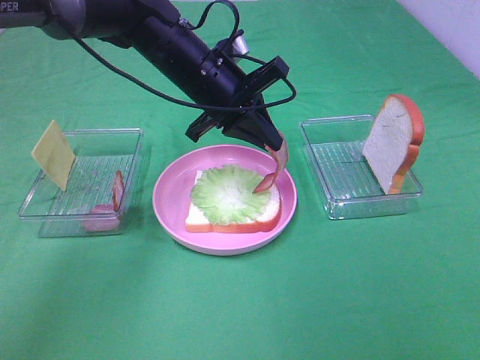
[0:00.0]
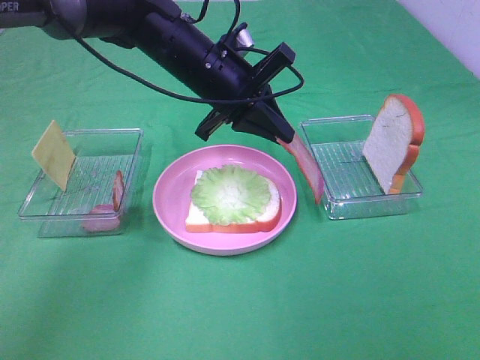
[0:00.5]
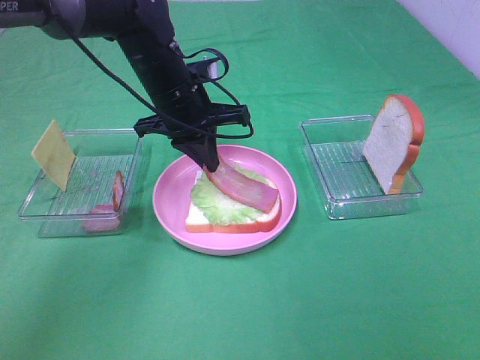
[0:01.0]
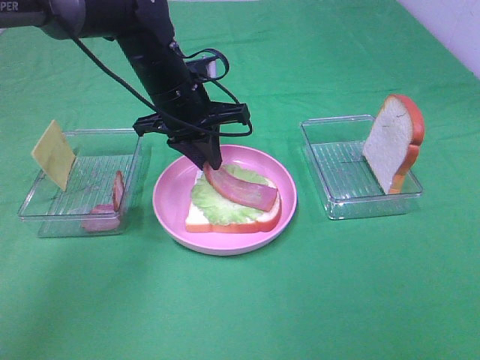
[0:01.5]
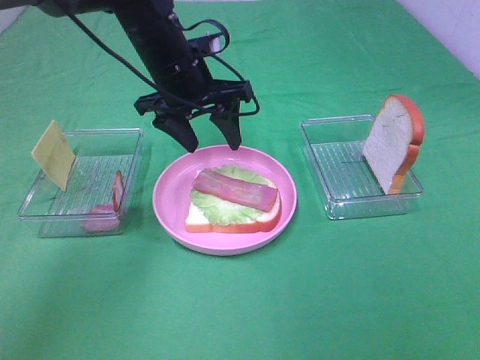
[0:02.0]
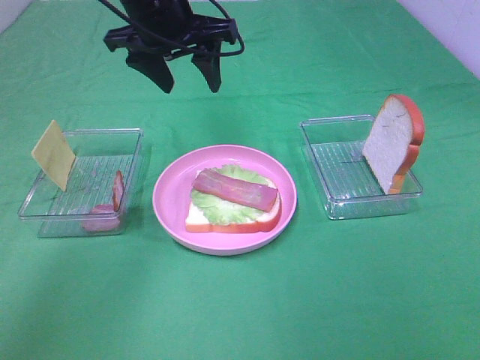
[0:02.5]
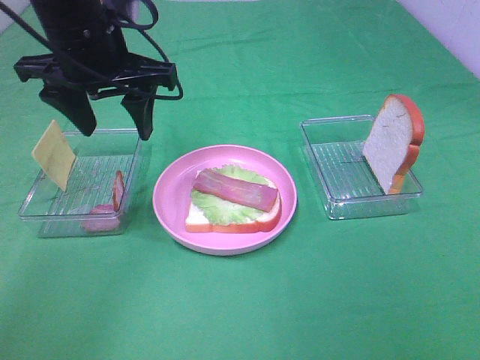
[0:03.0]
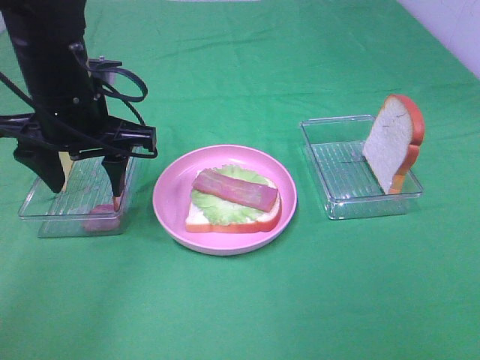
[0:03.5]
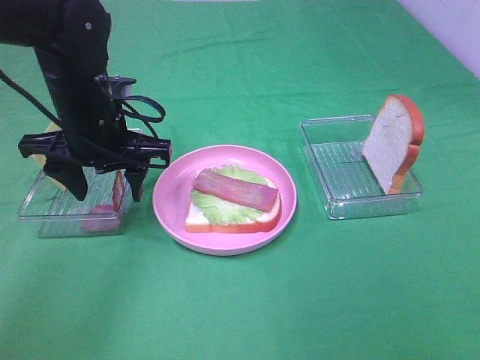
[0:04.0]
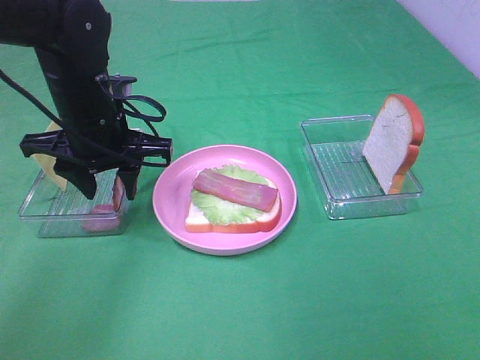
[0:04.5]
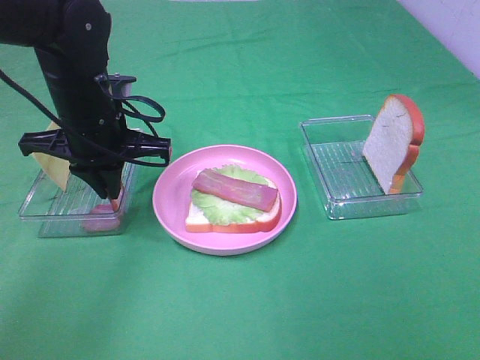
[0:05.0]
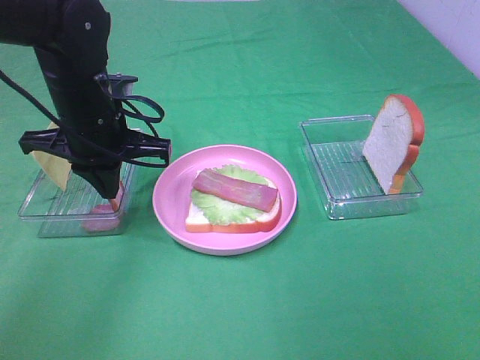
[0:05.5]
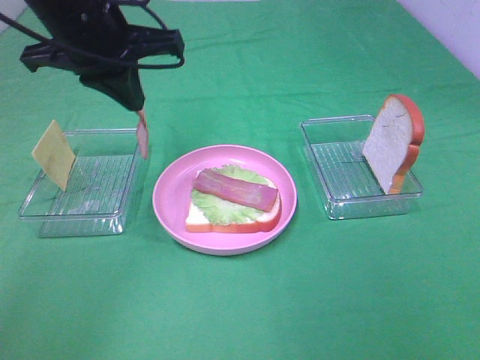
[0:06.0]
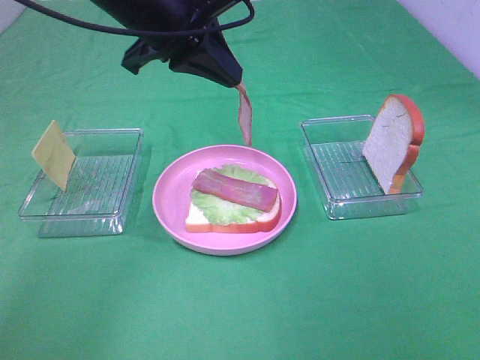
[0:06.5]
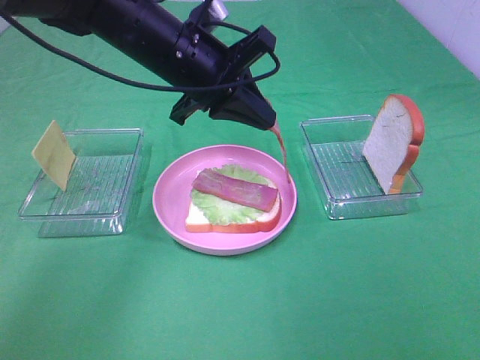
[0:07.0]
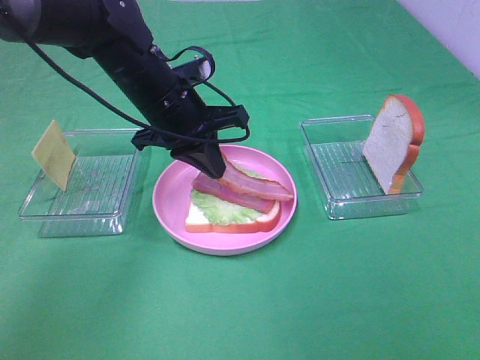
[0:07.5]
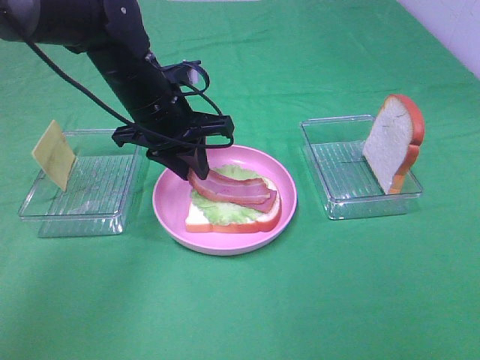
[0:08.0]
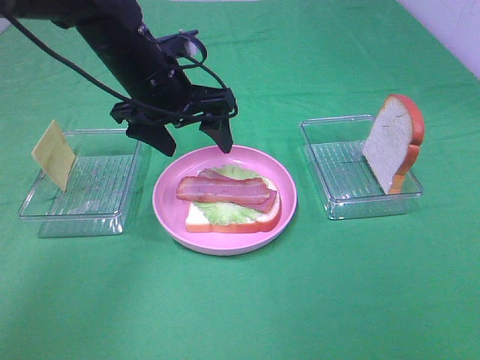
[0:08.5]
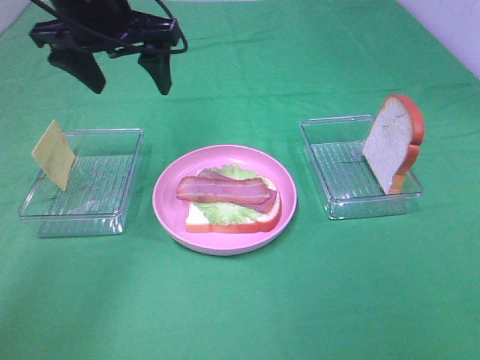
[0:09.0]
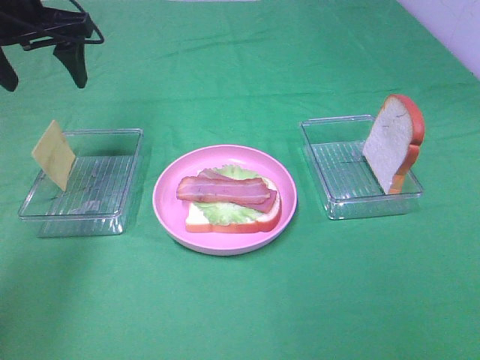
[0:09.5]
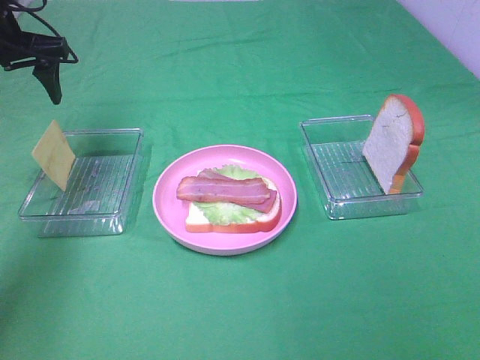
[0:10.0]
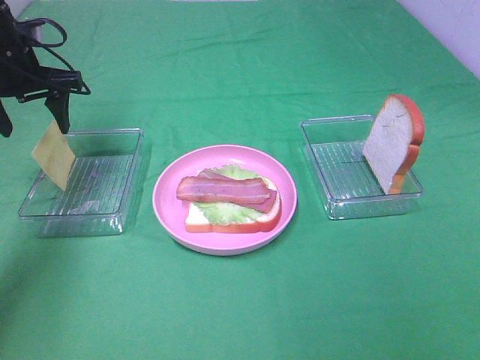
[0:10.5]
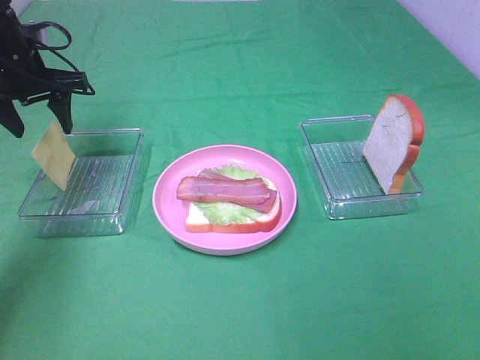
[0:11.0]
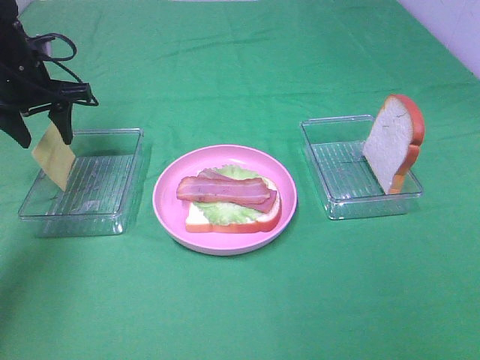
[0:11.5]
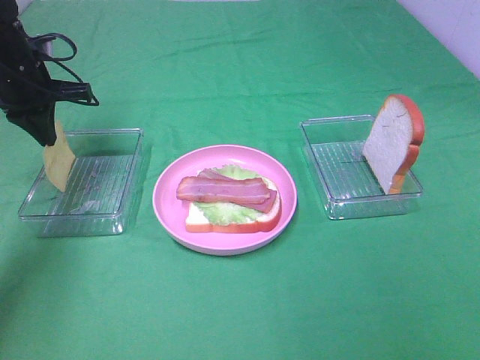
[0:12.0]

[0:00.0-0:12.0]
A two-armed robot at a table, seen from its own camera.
Task of the whole recording: Make sandwiches.
Step, 0:02.0 to 0:05.0: Left hand:grab the bacon.
Step, 0:05.5 to 0:08.0: Left hand:place bacon on bacon.
0:00.0 to 0:02.0: The left gripper opens.
0:02.0 to 0:04.0: The left gripper shifts approximately 10 cm to the left and backward, and travels upward and back again, about 5 cm each way.
0:04.0 to 0:06.0: The left gripper moves upward, approximately 10 cm, and closes.
0:06.0 to 0:08.0: The left gripper moves downward, about 10 cm, and opens.
0:08.0 to 0:10.0: The left gripper shifts some 20 cm to the left and upward, and opens its fingers.
0:10.0 to 0:12.0: The left gripper travels downward by roughly 5 cm, and closes up.

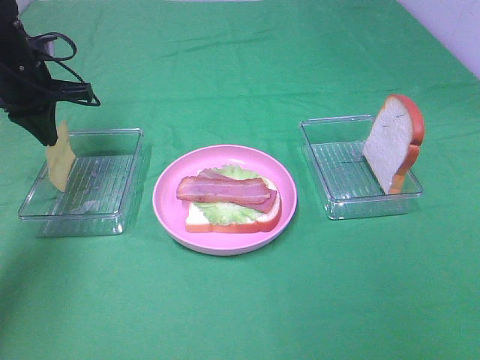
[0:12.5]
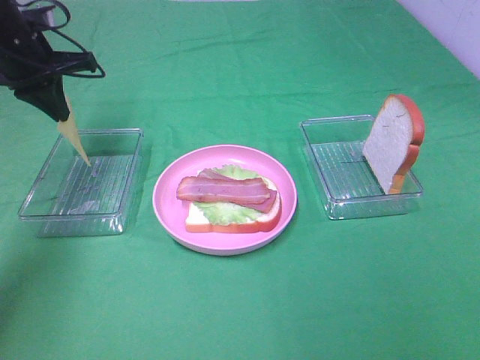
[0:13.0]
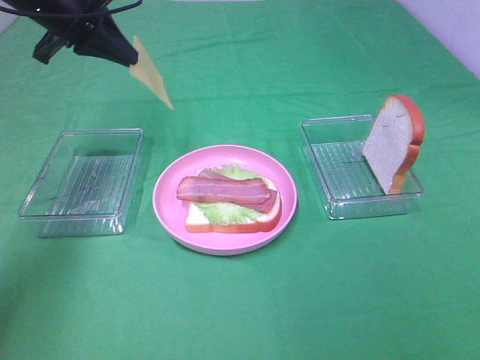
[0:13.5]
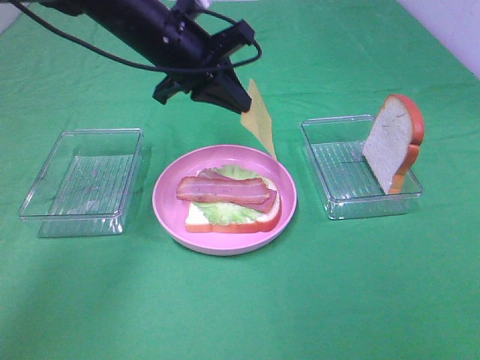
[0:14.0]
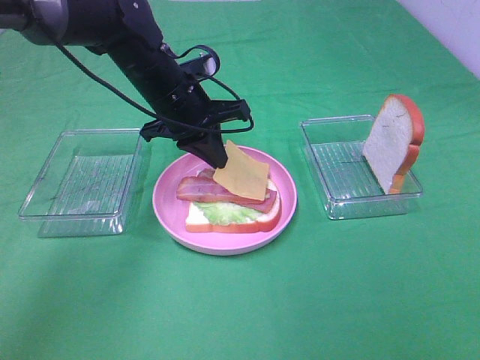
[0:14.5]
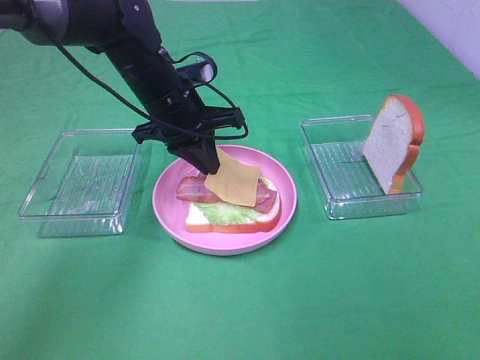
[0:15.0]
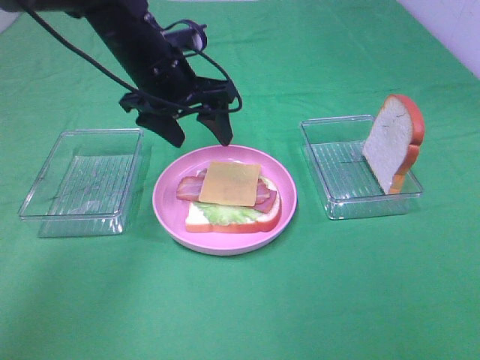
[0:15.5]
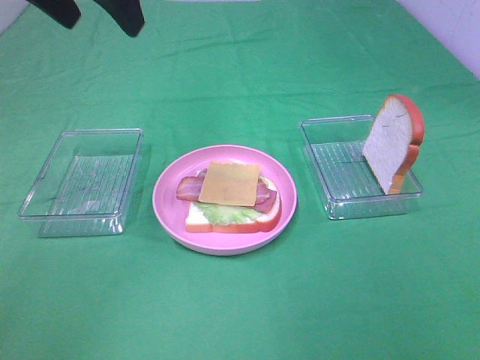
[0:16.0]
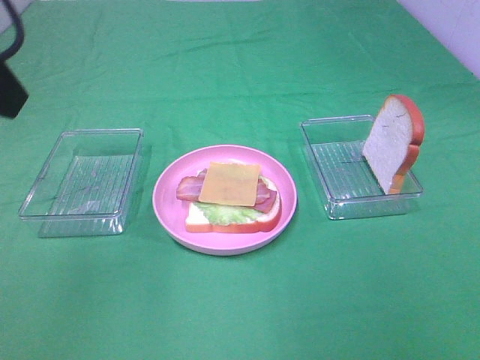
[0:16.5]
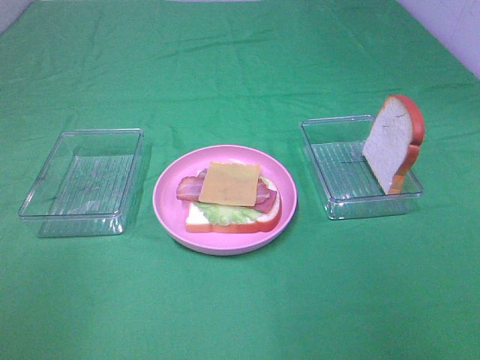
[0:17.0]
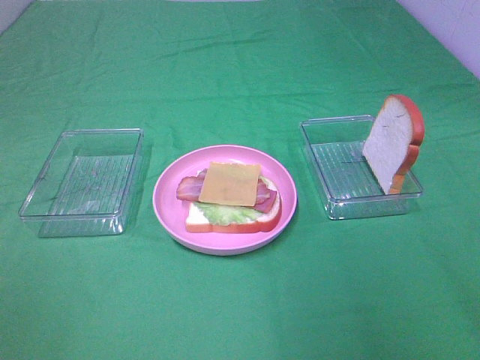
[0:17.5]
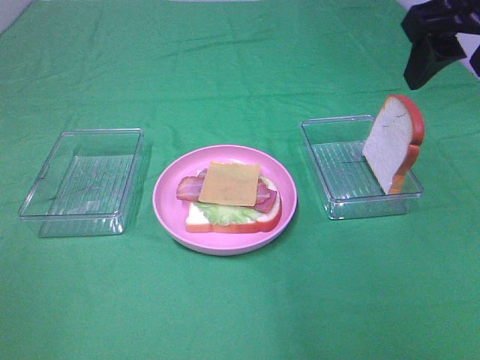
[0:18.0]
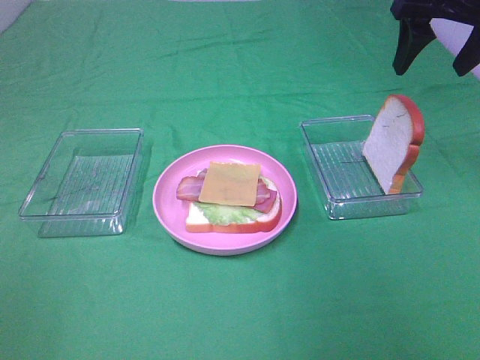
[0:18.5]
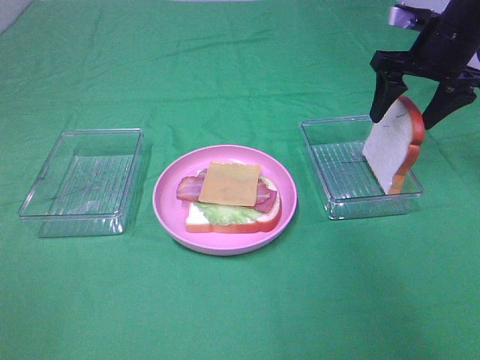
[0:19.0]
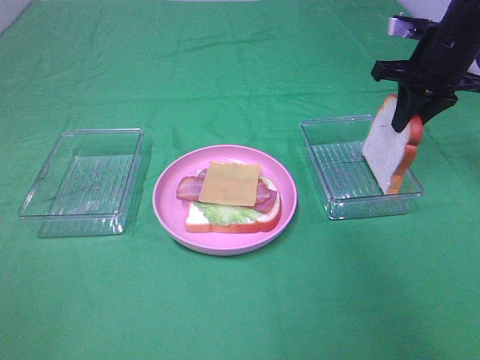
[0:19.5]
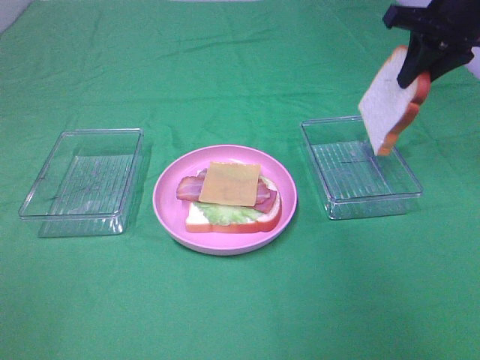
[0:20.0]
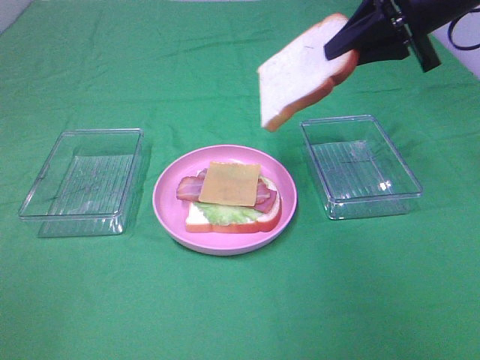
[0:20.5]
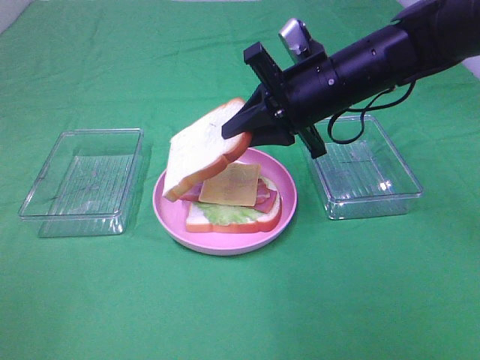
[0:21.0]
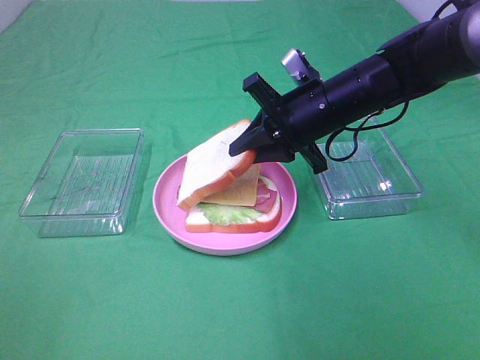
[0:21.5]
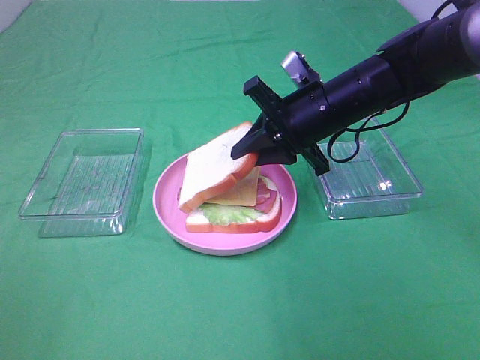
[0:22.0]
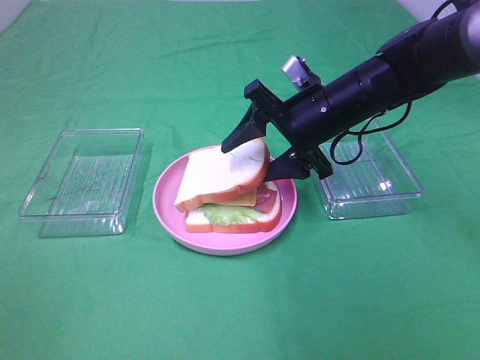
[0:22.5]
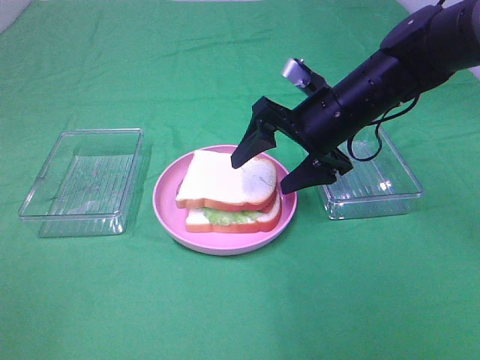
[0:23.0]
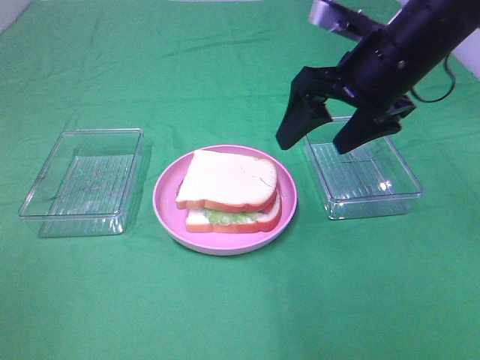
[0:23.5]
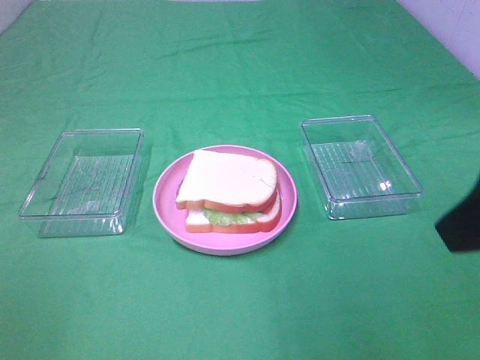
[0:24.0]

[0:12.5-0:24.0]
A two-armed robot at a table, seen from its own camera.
Task of the whole recording: Make sandwiches.
Step, 0:13.0 to 0:15.0: Left hand:place the cheese slice on top of the bacon.
Step, 0:15.5 to 0:19.5: Right hand:grab the bread slice.
Step, 0:20.0 to 0:23.0: Right hand:place the bread slice on the cheese slice.
0:12.5 to 0:14.5: The left gripper heads to the right, covering about 20 cm.
0:14.5 to 0:16.5: The left gripper moves backward, upward and to the left, roughly 35 cm, and opens its fingers.
0:16.5 to 0:18.5: The left gripper moves backward, to the left and downward, some 20 cm; the right gripper travels forward by some 40 cm.
0:18.5 to 0:20.0: The right gripper goes downward and returns, some 10 cm each way, and closes up.
0:20.0 to 0:22.0: The right gripper heads to the left and downward, covering roughly 20 cm.
0:22.0 to 0:24.0: The right gripper shifts approximately 30 cm backward, upward and to the right, and opens its fingers.

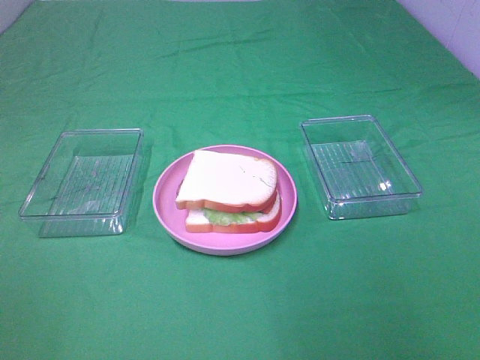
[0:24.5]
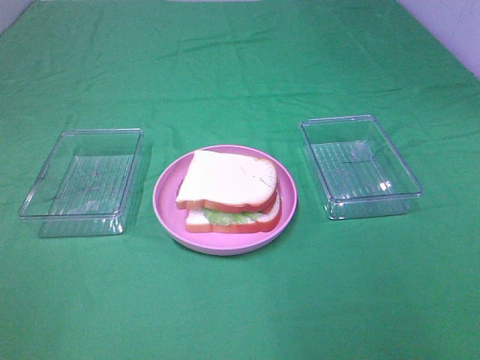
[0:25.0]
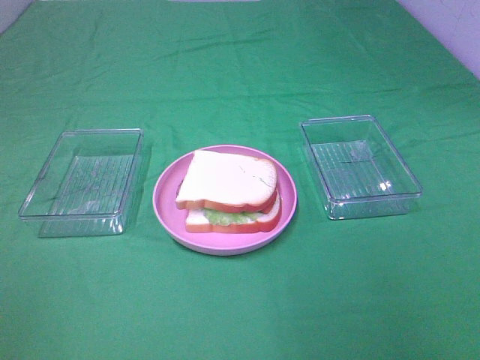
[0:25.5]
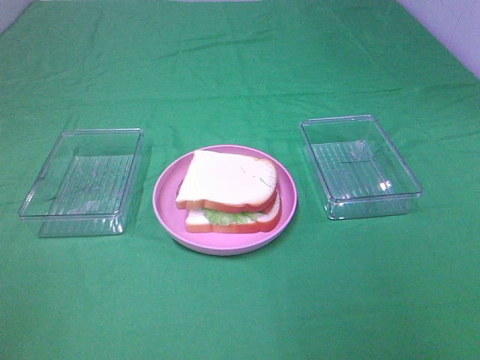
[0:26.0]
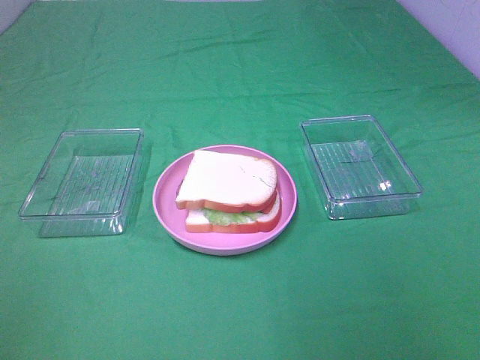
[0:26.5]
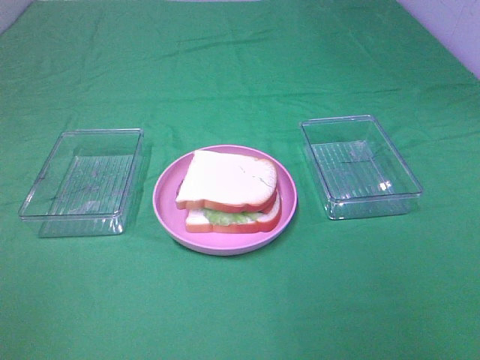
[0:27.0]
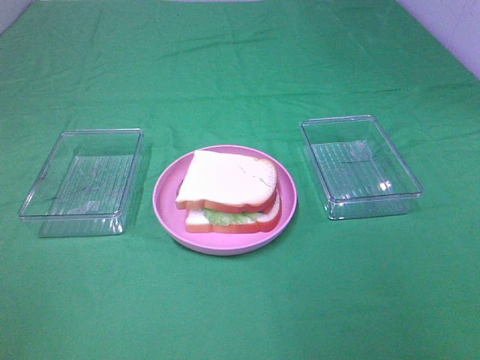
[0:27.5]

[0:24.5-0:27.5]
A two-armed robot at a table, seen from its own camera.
Task of the whole recording: Make sandwiches.
0:26.0 to 0:27.5: Both grippers stay put.
